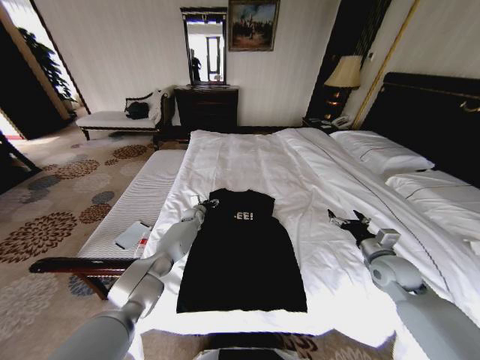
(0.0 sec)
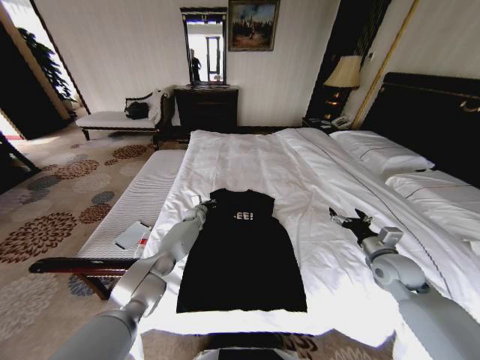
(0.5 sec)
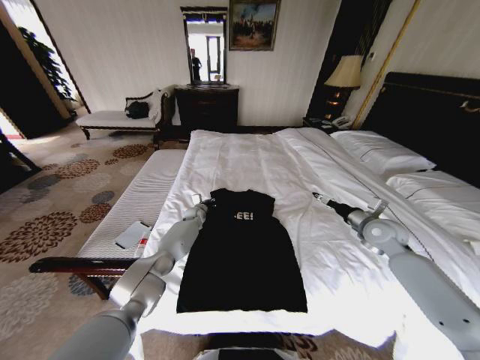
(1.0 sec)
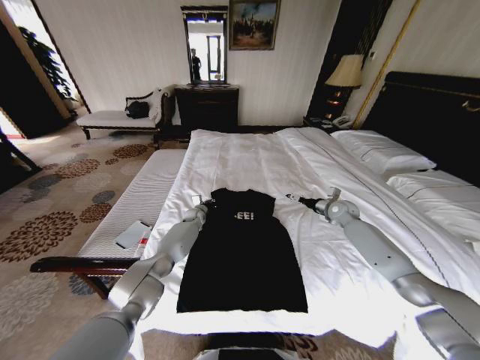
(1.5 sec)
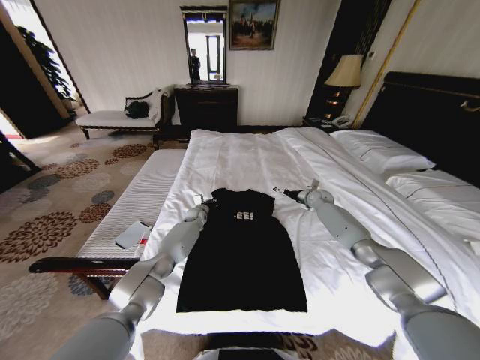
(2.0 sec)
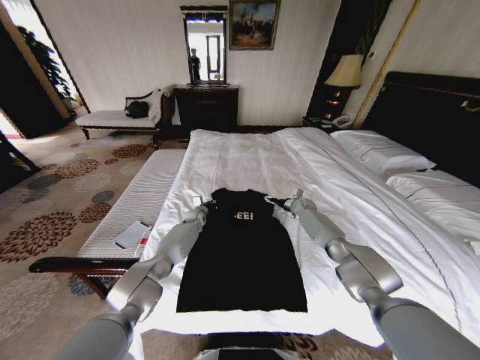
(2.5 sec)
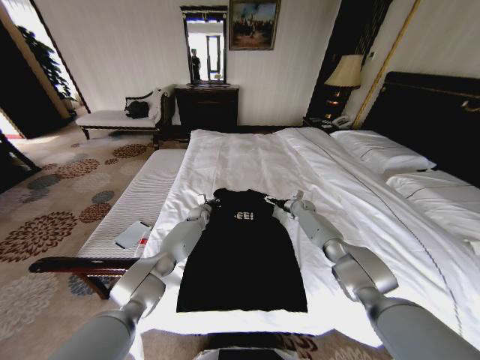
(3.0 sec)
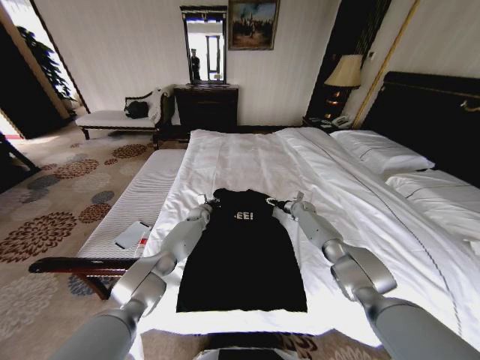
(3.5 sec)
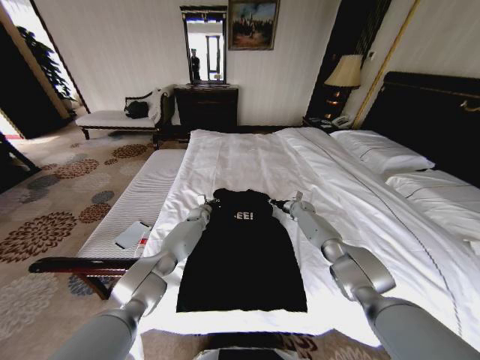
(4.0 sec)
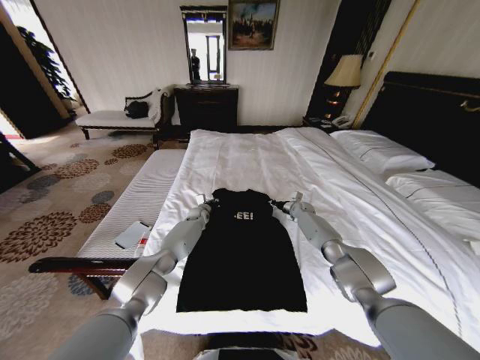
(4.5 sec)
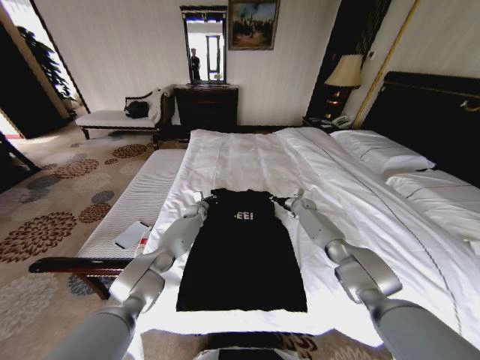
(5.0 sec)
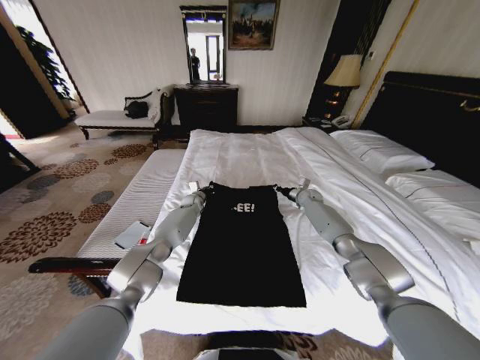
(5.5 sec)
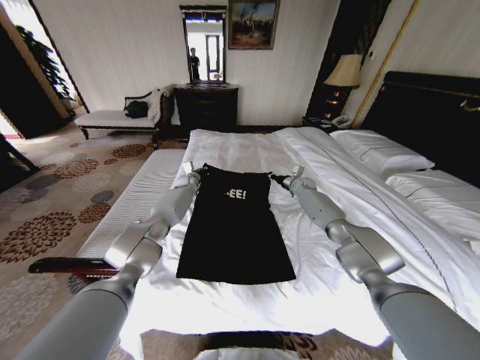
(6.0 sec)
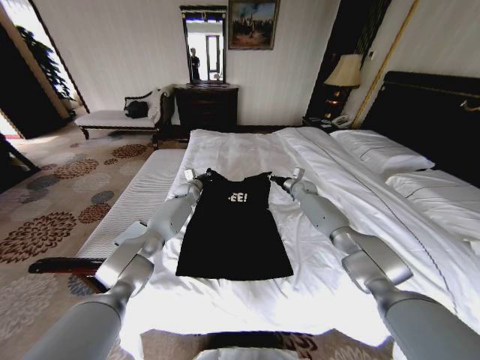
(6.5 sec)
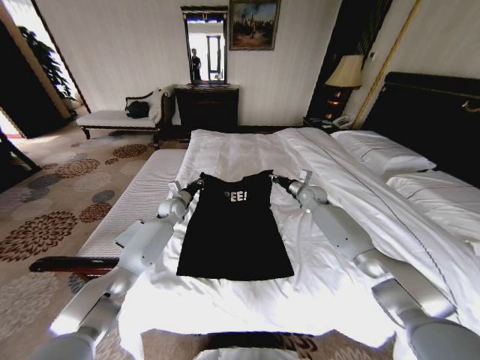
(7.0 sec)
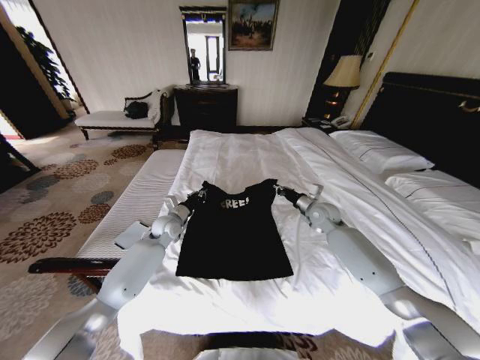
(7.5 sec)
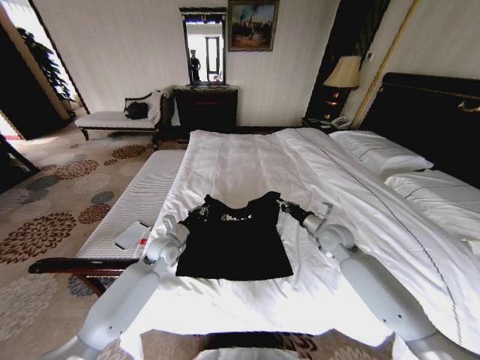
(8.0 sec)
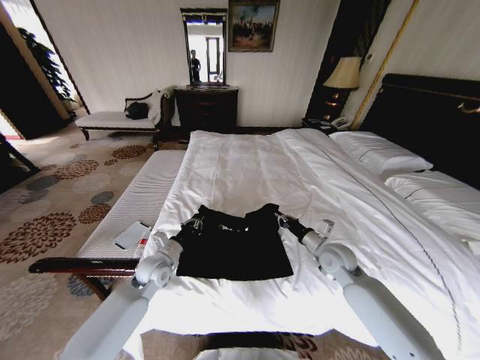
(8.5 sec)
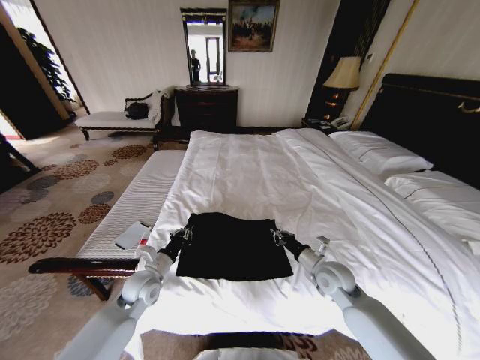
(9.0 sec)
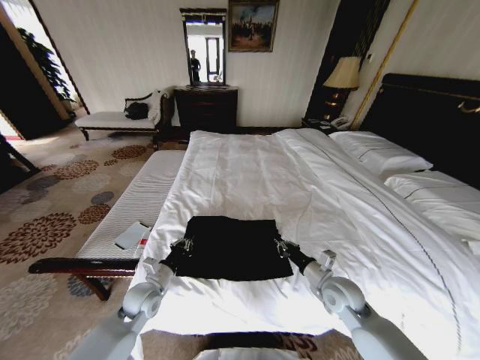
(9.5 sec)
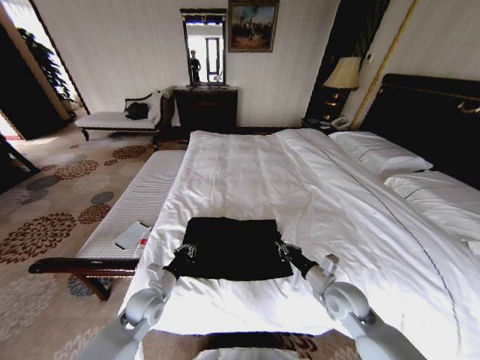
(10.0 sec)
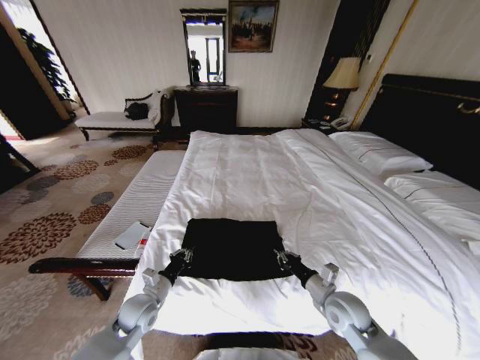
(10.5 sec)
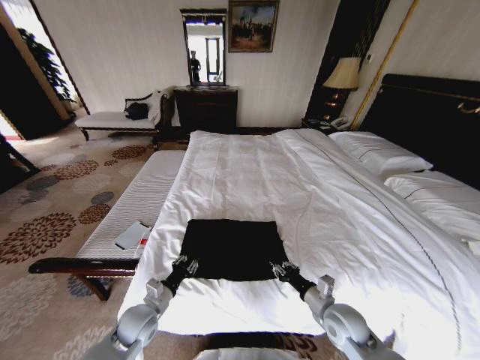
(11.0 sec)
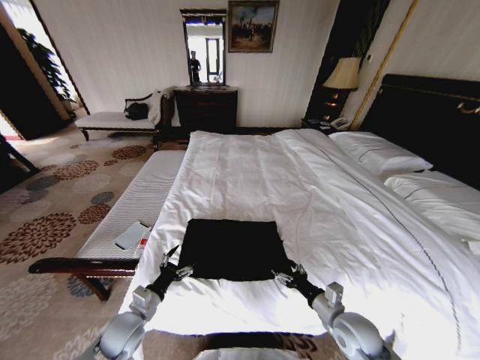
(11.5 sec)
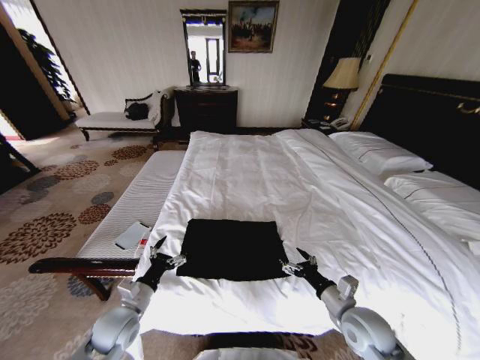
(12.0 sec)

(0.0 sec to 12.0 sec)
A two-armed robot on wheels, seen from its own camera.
Task of the whole recording: Fold the clothes on the bed.
0.0 sec - 2.0 sec: The right gripper goes approximately 30 cm forward. The left gripper closes up.
2.0 sec - 4.0 sec: The right gripper is displaced downward by about 10 cm, and closes its fingers.
4.0 sec - 6.0 sec: The left gripper shifts roughly 15 cm upward and forward; the right gripper moves upward, approximately 10 cm.
6.0 sec - 8.0 sec: The two grippers go some 25 cm backward.
8.0 sec - 10.0 sec: The right gripper heads backward, covering roughly 15 cm; the left gripper shifts some 15 cm backward and downward.
10.0 sec - 12.0 sec: Both grippers move backward, some 5 cm. The left gripper opens up. The right gripper opens its fingers.

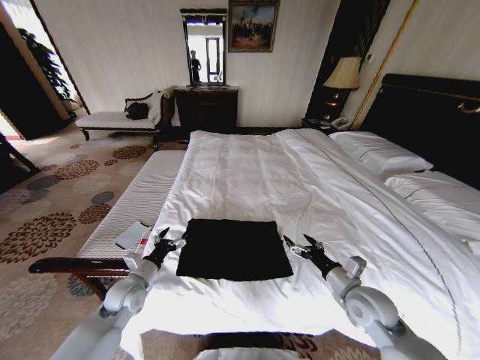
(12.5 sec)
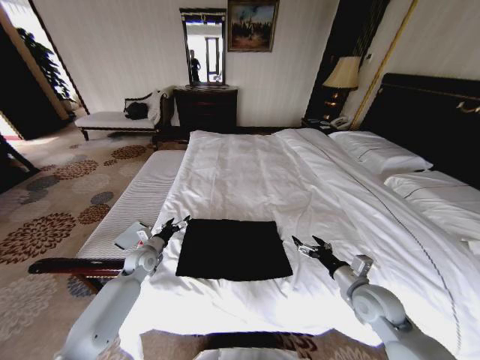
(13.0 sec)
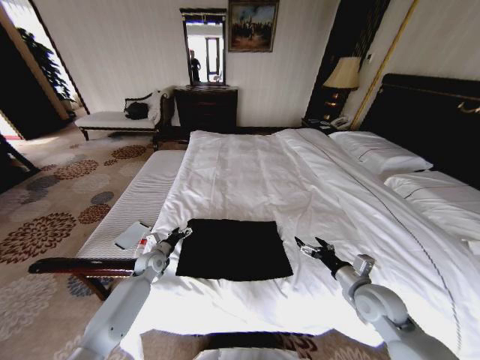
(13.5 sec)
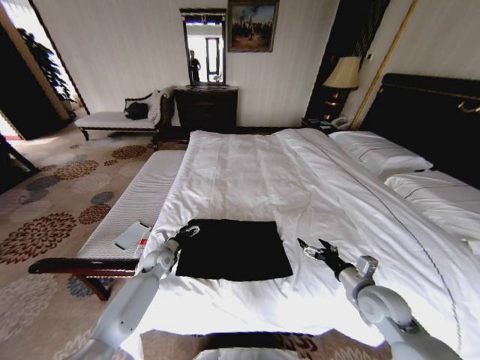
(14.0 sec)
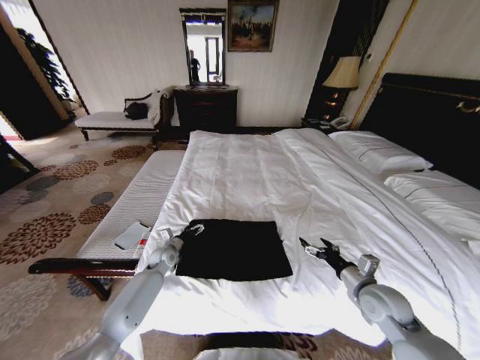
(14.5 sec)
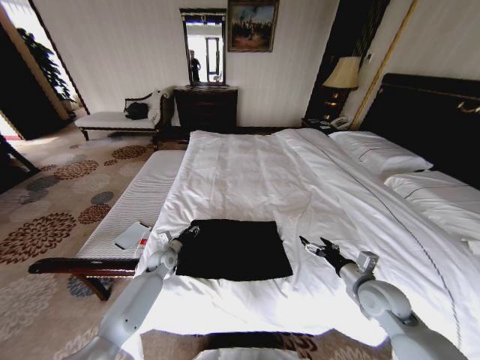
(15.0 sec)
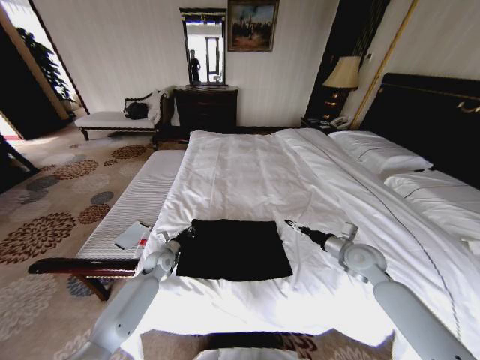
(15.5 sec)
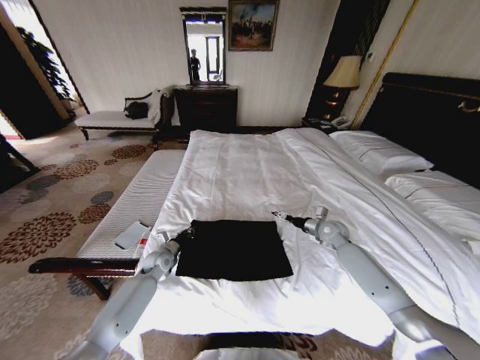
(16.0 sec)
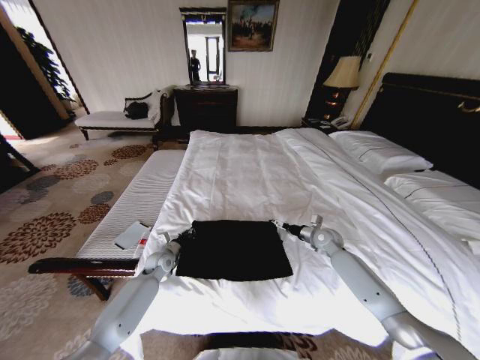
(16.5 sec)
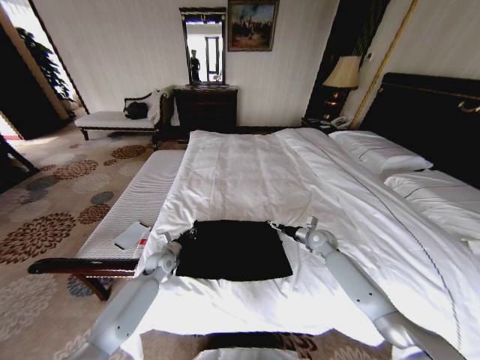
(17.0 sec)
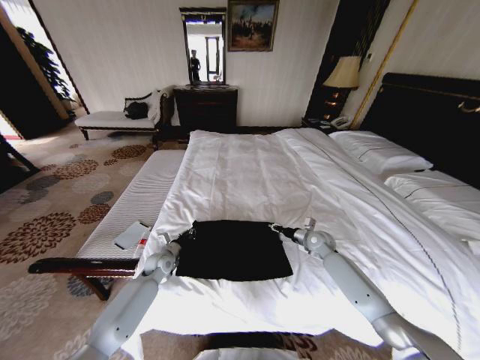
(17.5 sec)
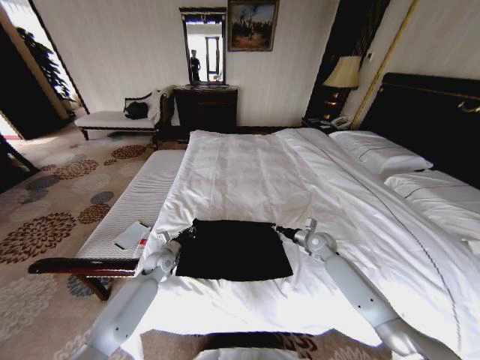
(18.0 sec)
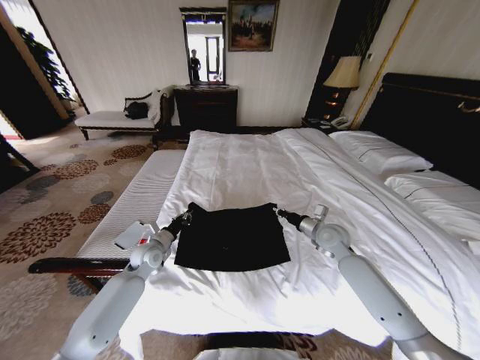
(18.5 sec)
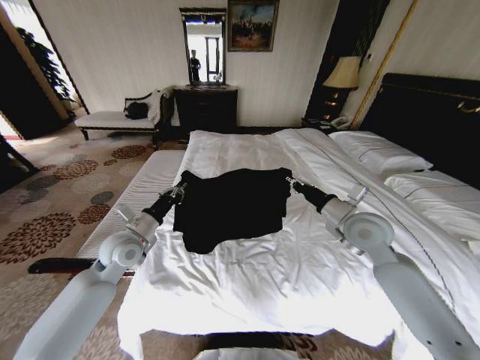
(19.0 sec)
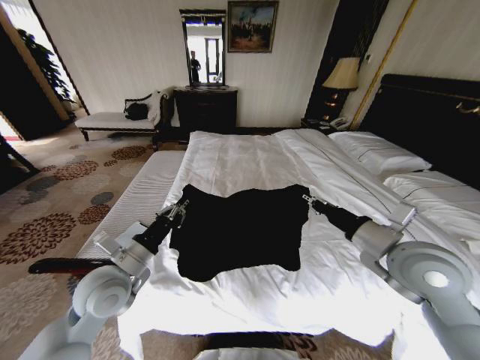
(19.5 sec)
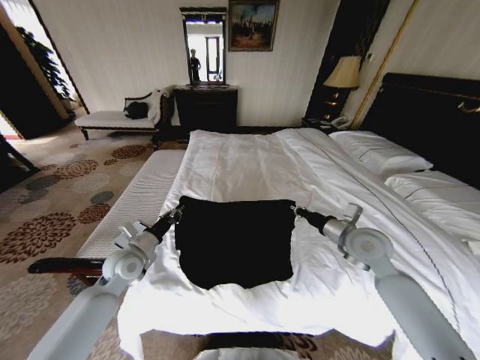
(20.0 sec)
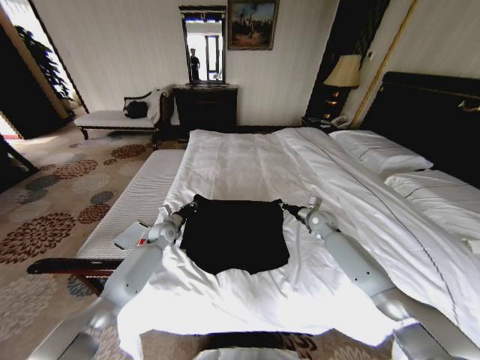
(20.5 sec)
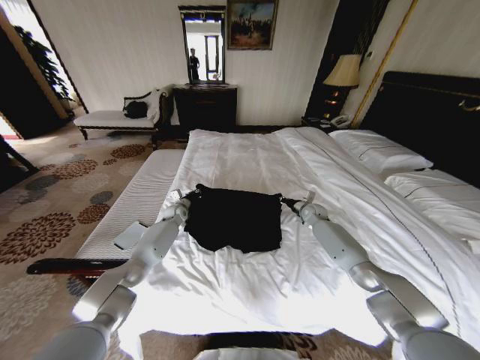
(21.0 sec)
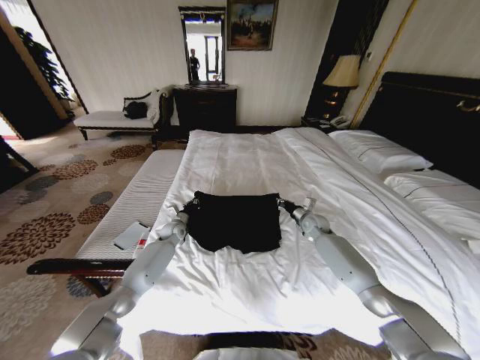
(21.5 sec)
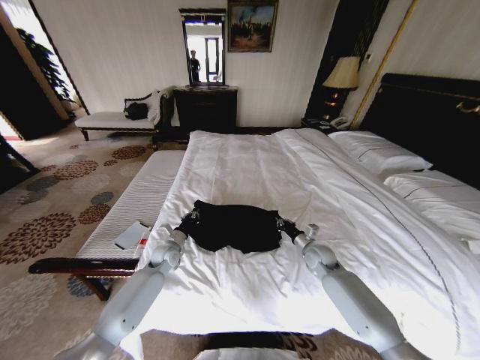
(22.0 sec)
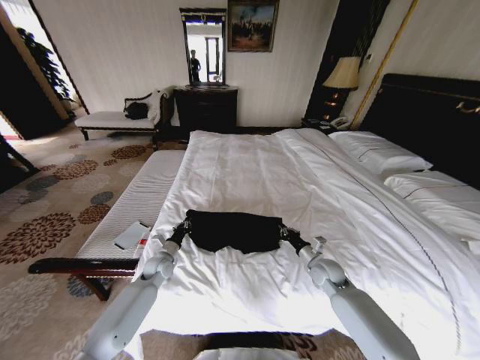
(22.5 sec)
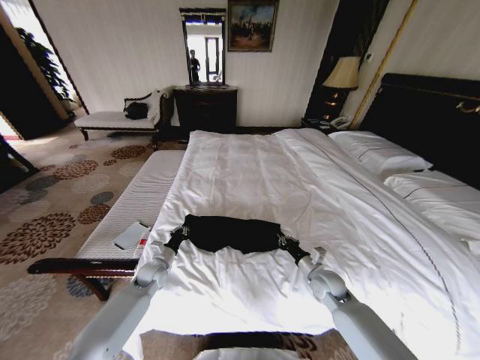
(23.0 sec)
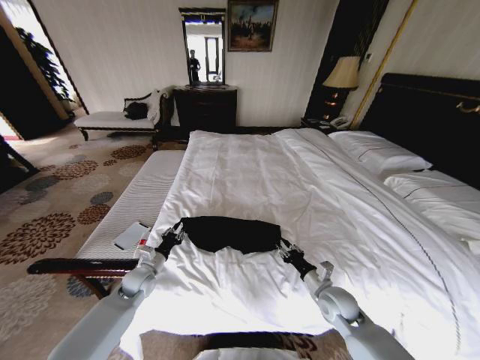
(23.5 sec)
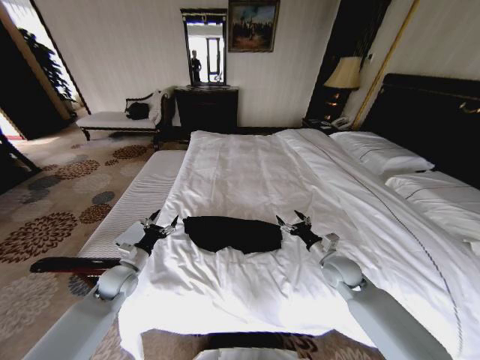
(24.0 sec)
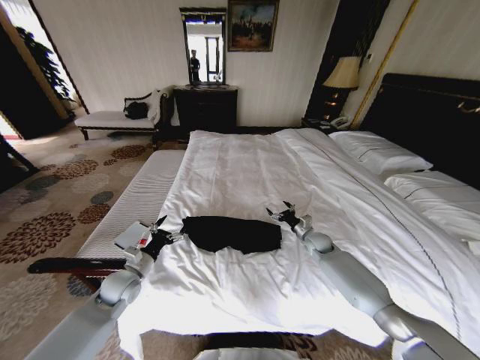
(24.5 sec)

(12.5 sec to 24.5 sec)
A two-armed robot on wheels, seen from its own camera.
Task of the whole recording: Fold the clothes on the bed.
12.5 sec - 14.5 sec: The left gripper travels forward and downward by roughly 15 cm.
14.5 sec - 16.5 sec: The right gripper shifts approximately 20 cm forward. The left gripper closes up.
16.5 sec - 18.5 sec: The grippers both shift upward by approximately 10 cm. The right gripper closes up.
18.5 sec - 20.5 sec: The two grippers go roughly 10 cm forward.
20.5 sec - 22.5 sec: Both grippers move backward and downward, about 15 cm.
22.5 sec - 24.5 sec: The right gripper heads forward, covering approximately 10 cm, and opens its fingers. The left gripper moves backward, upward and to the left, about 15 cm, and opens its fingers.

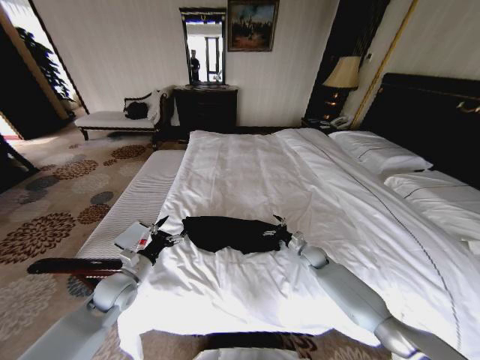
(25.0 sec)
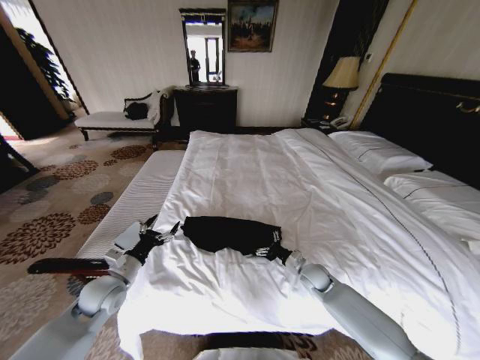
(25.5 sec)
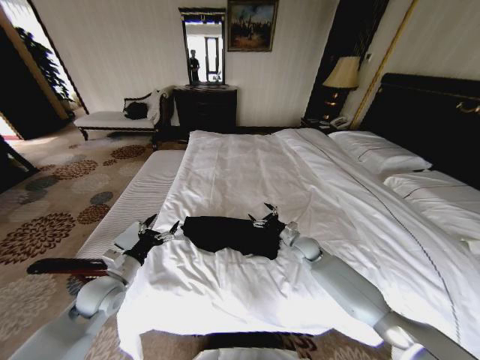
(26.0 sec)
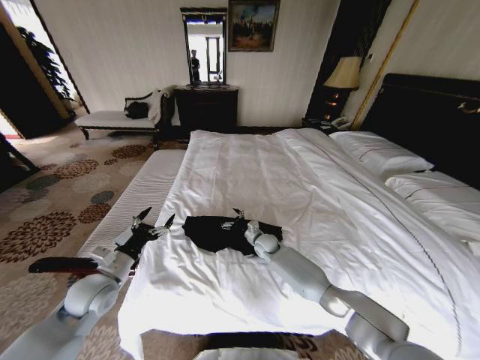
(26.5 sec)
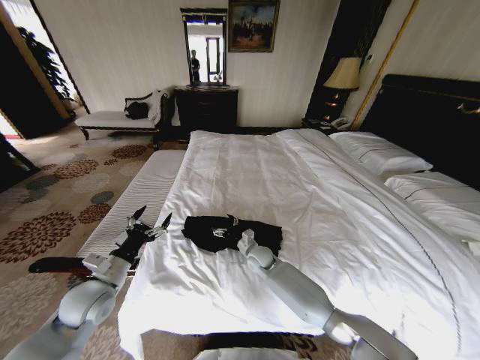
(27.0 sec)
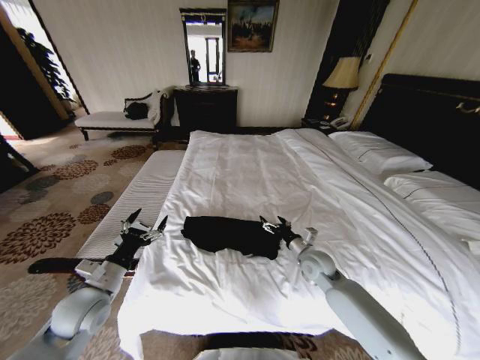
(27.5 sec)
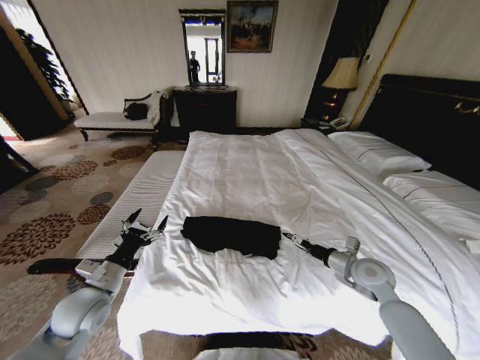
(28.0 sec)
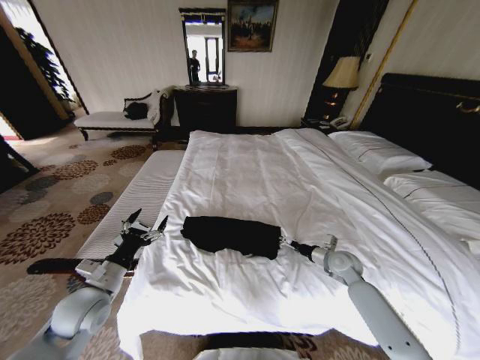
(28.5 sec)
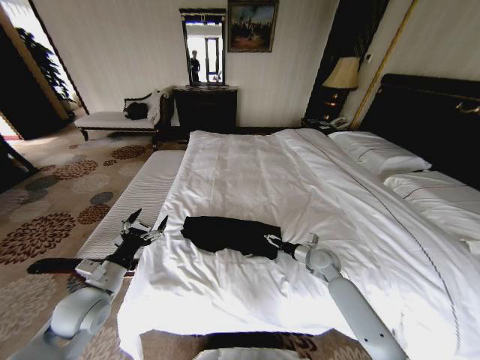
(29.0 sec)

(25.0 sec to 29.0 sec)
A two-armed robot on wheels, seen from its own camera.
Task of the whole recording: Fold the clothes on the bed.
25.0 sec - 27.0 sec: The left gripper travels upward by approximately 5 cm; the right gripper shifts approximately 20 cm to the left.
27.0 sec - 29.0 sec: The right gripper travels to the right by some 20 cm.
